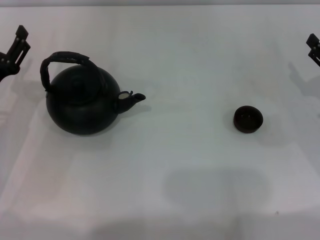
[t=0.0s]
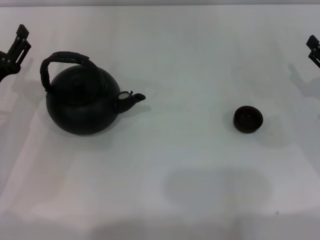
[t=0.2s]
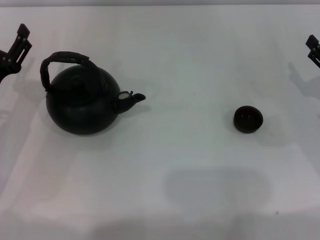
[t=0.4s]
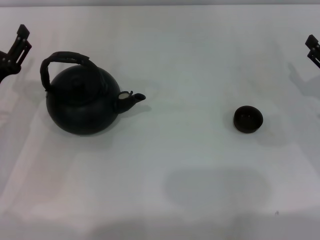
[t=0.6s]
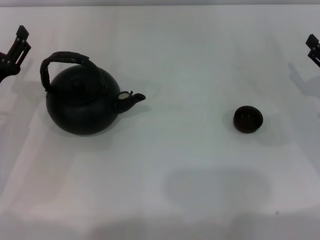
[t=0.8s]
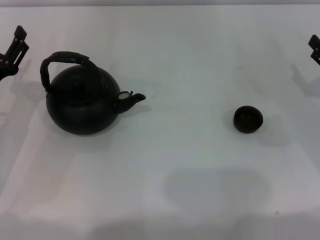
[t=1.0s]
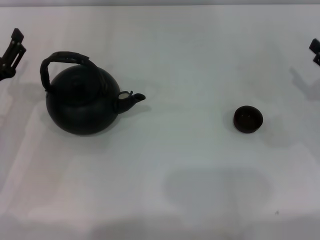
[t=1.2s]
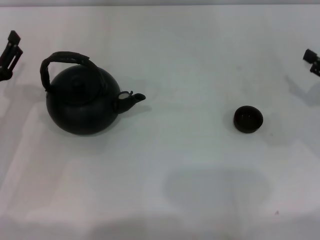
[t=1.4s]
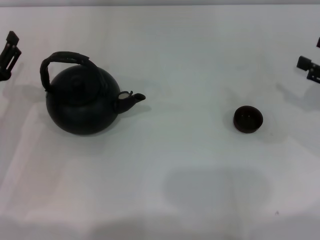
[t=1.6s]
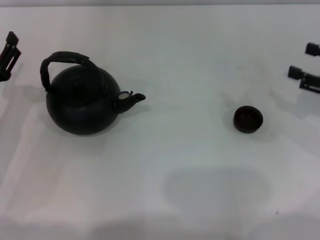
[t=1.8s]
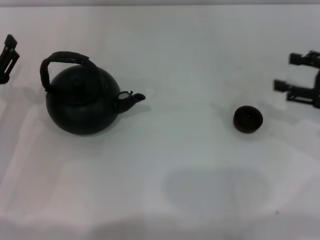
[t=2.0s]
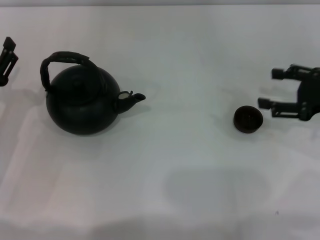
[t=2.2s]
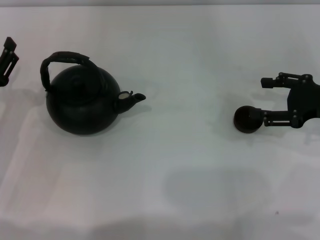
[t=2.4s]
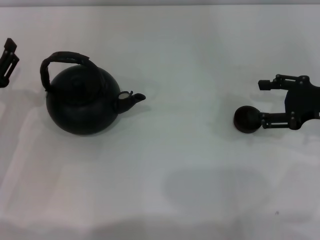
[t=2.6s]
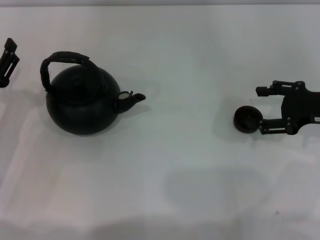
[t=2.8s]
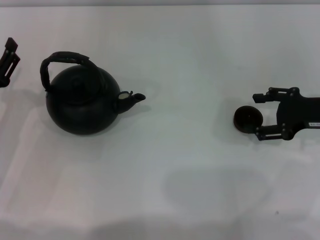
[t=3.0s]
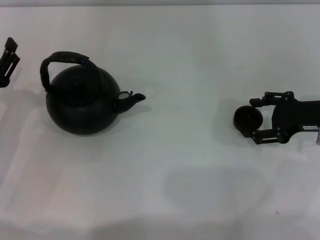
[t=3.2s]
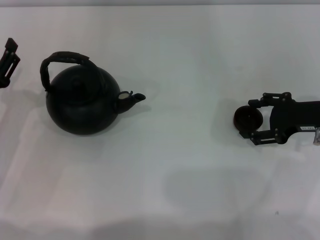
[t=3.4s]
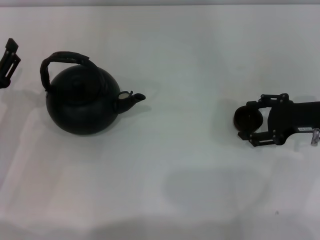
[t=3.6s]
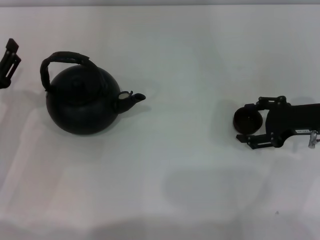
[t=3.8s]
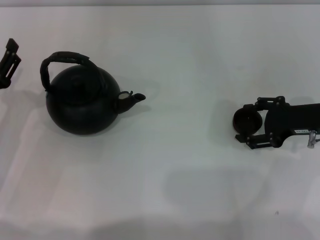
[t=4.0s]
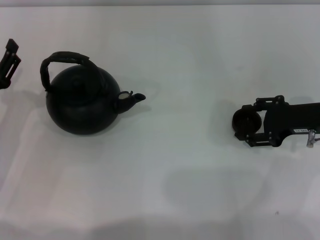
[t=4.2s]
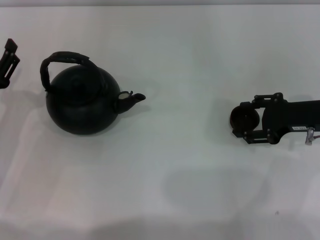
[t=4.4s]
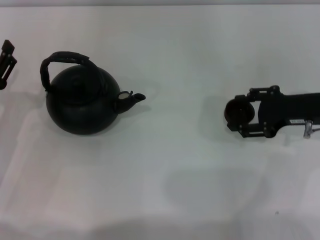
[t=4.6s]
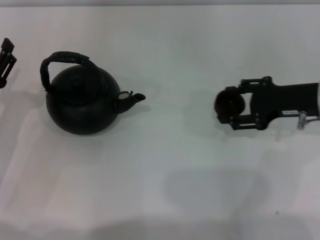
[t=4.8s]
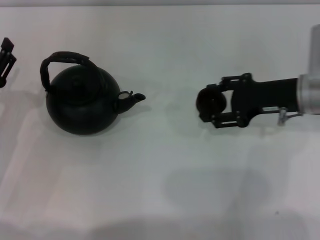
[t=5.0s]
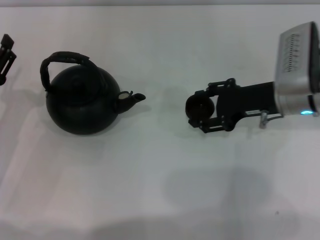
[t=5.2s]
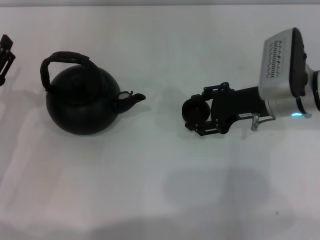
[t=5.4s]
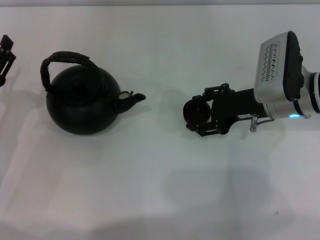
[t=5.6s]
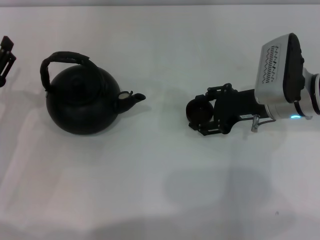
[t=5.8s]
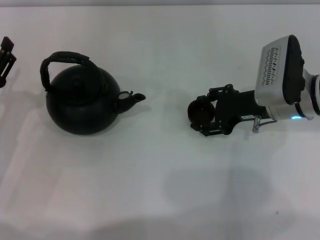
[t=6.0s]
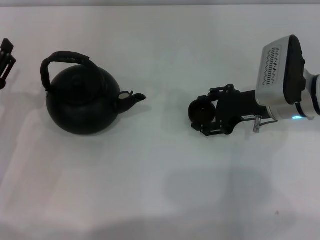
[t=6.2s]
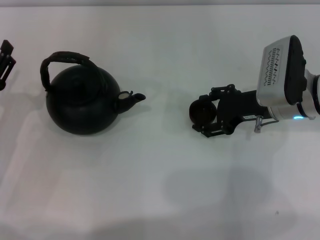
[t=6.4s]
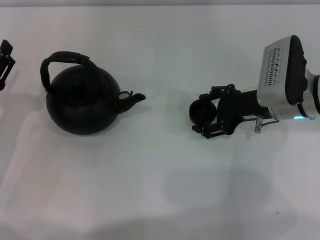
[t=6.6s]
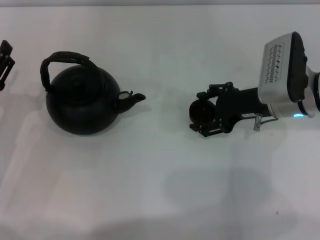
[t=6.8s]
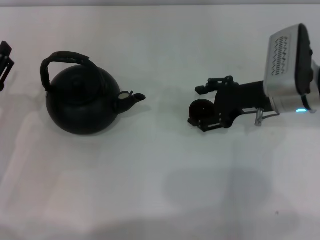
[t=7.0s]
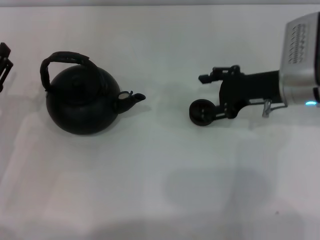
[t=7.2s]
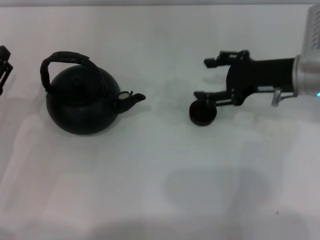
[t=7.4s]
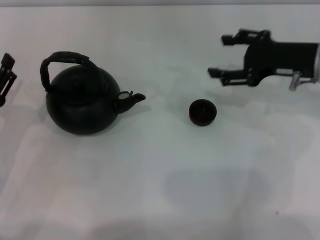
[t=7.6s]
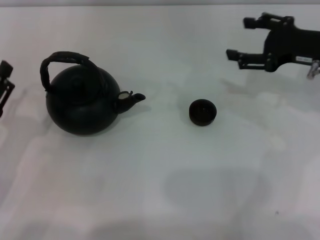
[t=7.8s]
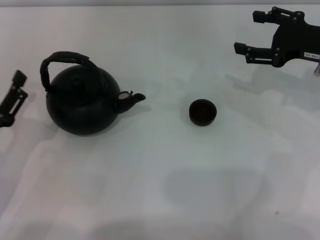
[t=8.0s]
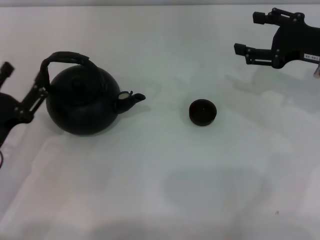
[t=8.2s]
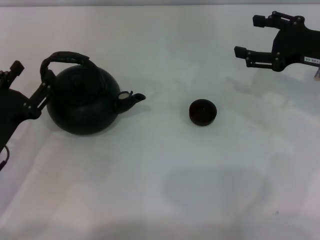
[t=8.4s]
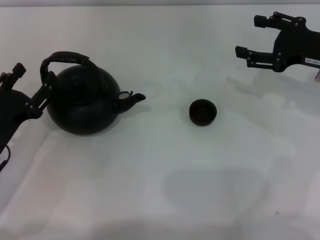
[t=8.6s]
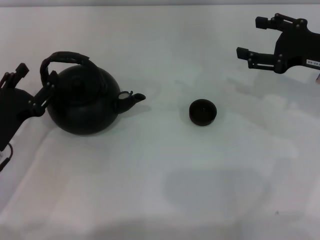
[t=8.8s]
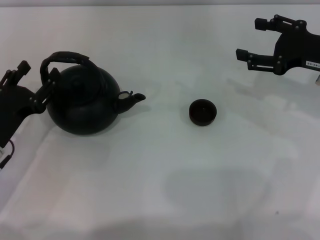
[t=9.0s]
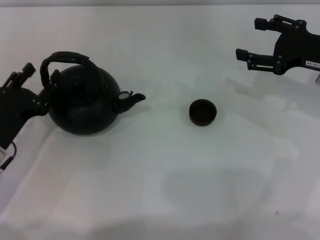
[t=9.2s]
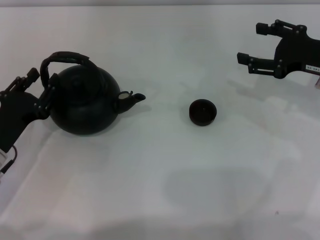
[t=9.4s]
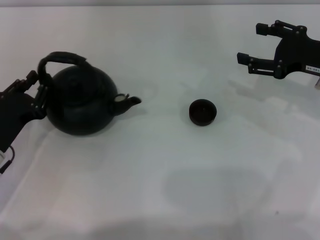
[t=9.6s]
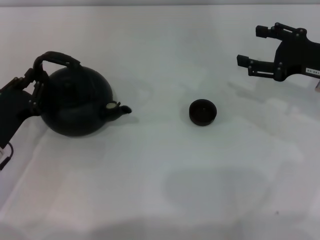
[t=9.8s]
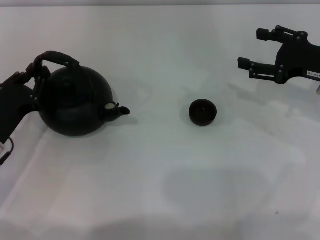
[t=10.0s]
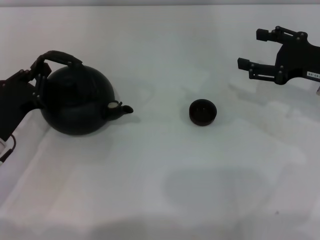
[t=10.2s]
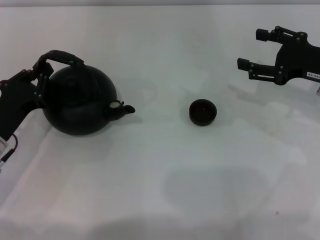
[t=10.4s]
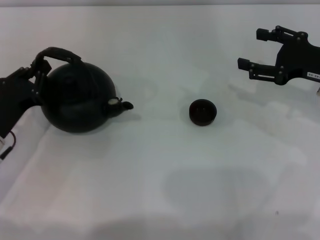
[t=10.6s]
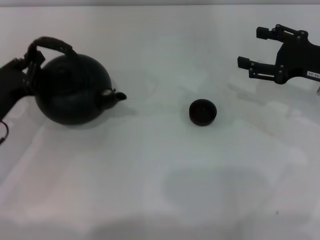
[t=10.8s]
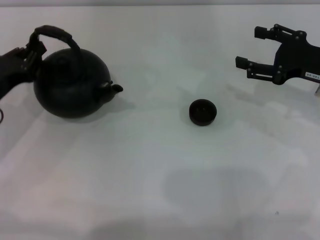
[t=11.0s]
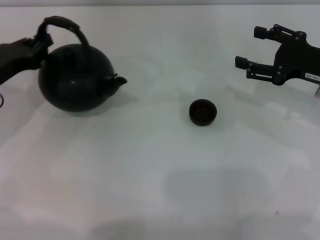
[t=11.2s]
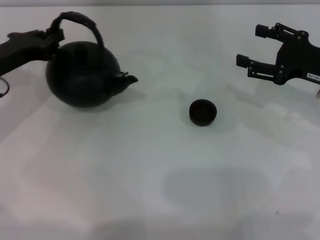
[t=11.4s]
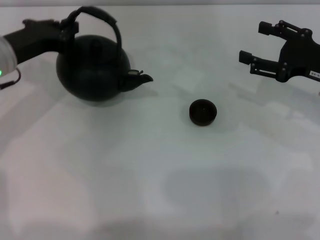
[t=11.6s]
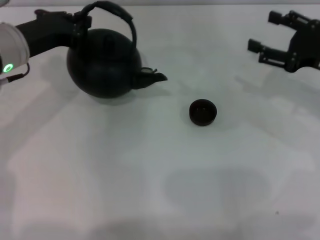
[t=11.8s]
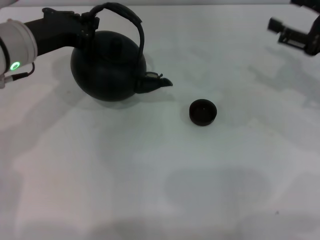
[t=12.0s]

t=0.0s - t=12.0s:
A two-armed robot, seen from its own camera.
Task of the whole recording: Grasp the handle of the teapot with one hand and pour tea into the teacup.
Step, t=0.0s - t=4.6s: Pick up the teacup with the right gripper.
Step, t=4.8s - t=7.4s: Place the teacup in the center of view with the right gripper.
Step, t=7.6s - t=11.4s: Pick up the teapot with the left gripper.
t=0.0s - t=1.6s: The right gripper changes place by about 5 cm.
t=1.6s - t=3.0s: The right gripper shifts approximately 5 cm to the left.
t=3.0s - t=4.4s: There are only small adjustments of the grippers.
t=4.4s - t=6.0s: The right gripper is displaced to the left by roughly 10 cm.
t=6.0s - t=7.6s: The right gripper shifts some 5 cm upward.
t=7.6s - t=9.0s: The grippers move only a little.
t=9.0s - t=10.4s: The left gripper closes its fingers.
t=10.4s - t=12.0s: The left gripper shifts approximately 15 cm upward, forward and to the right.

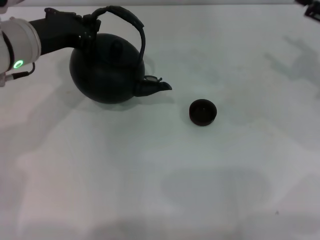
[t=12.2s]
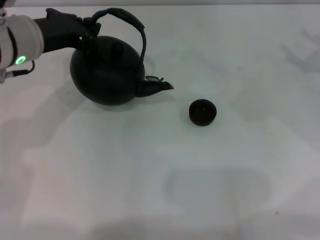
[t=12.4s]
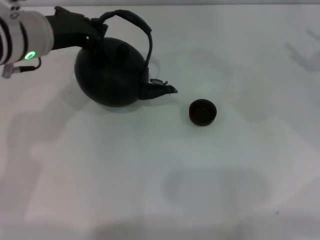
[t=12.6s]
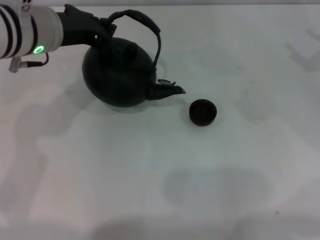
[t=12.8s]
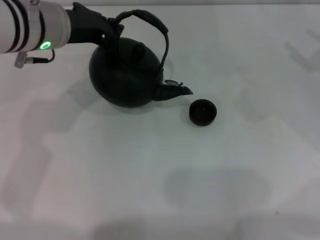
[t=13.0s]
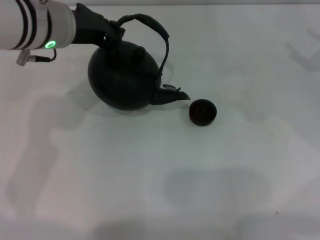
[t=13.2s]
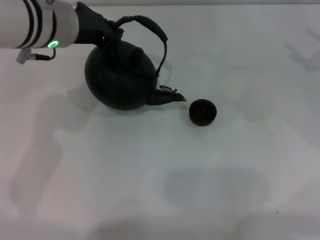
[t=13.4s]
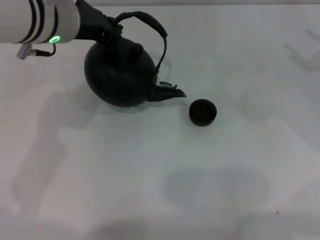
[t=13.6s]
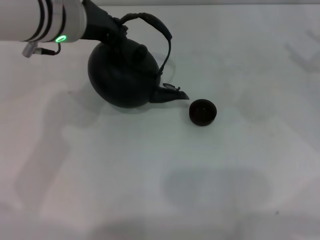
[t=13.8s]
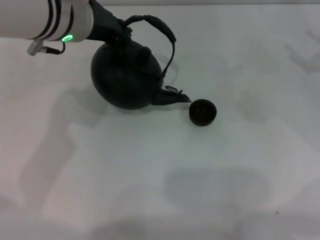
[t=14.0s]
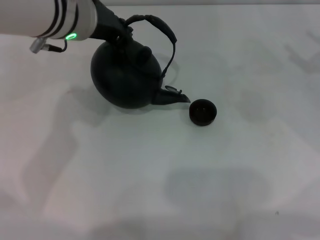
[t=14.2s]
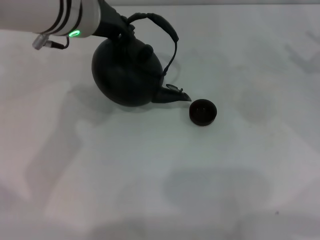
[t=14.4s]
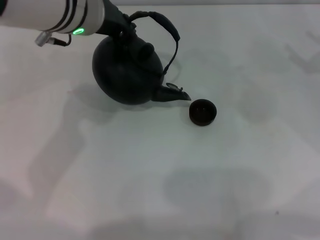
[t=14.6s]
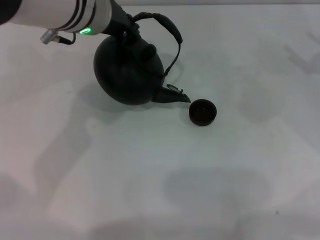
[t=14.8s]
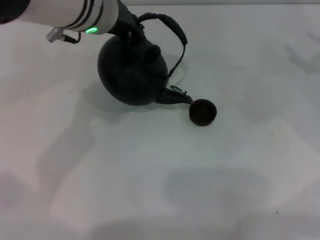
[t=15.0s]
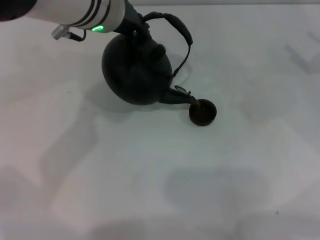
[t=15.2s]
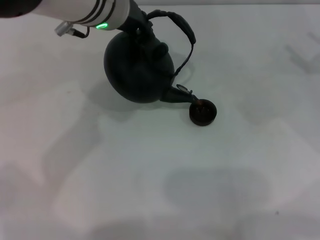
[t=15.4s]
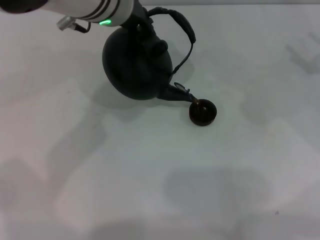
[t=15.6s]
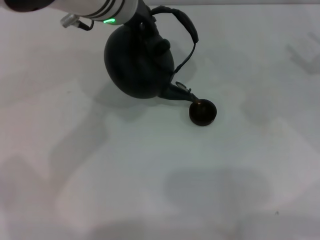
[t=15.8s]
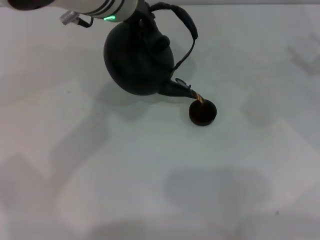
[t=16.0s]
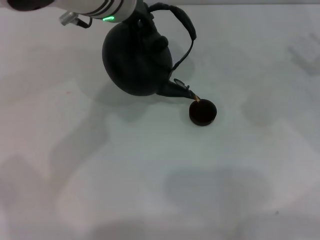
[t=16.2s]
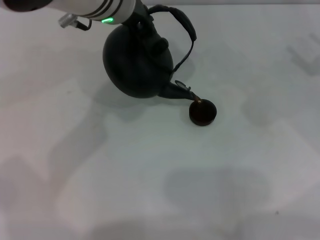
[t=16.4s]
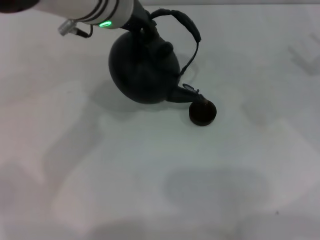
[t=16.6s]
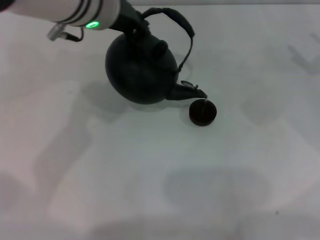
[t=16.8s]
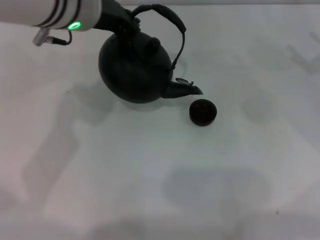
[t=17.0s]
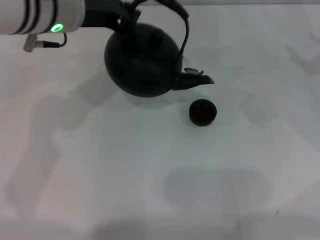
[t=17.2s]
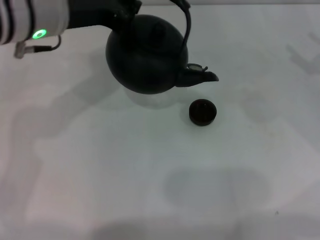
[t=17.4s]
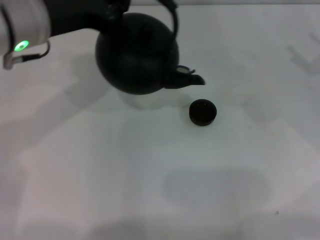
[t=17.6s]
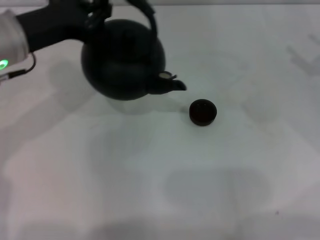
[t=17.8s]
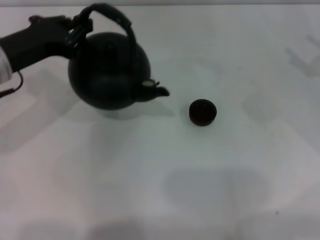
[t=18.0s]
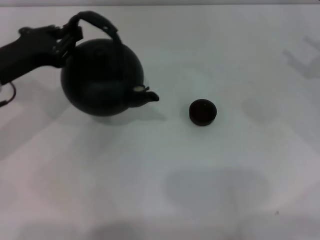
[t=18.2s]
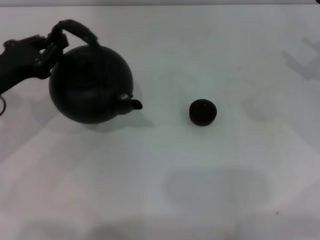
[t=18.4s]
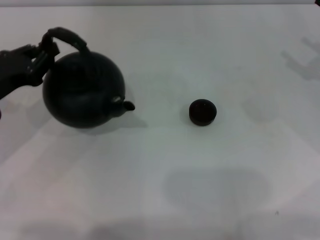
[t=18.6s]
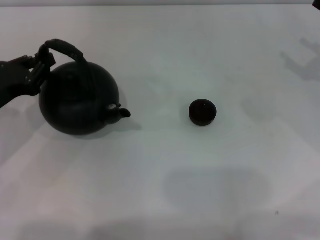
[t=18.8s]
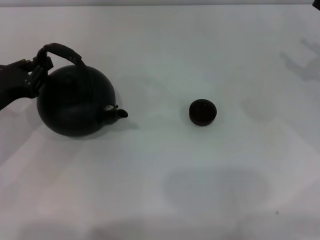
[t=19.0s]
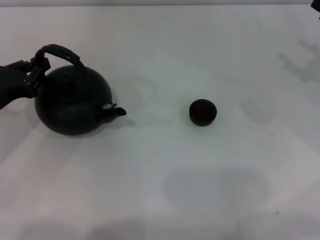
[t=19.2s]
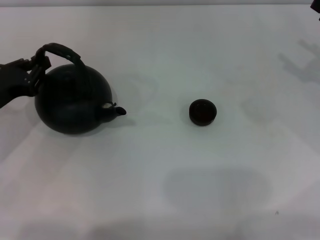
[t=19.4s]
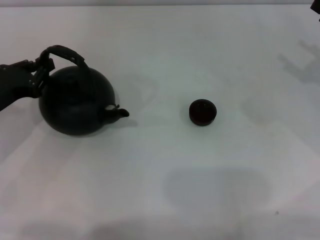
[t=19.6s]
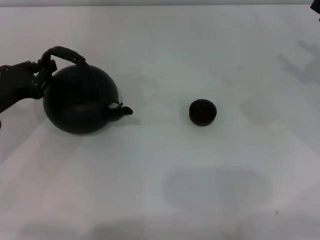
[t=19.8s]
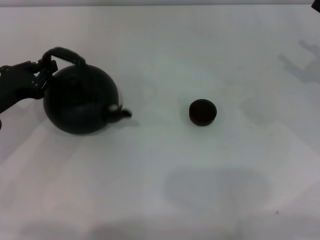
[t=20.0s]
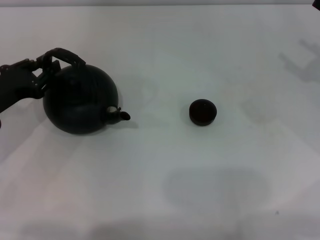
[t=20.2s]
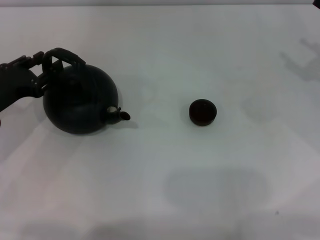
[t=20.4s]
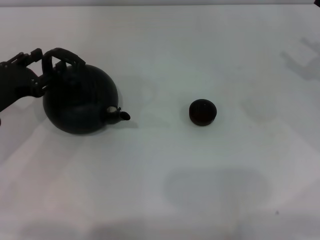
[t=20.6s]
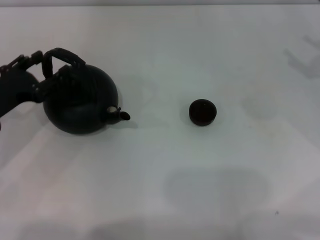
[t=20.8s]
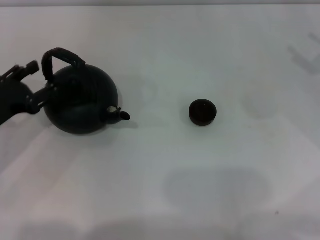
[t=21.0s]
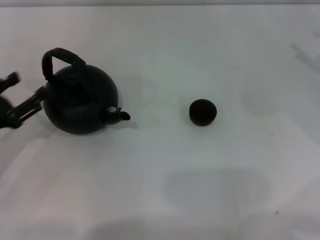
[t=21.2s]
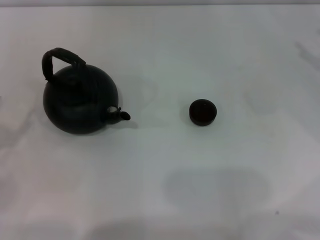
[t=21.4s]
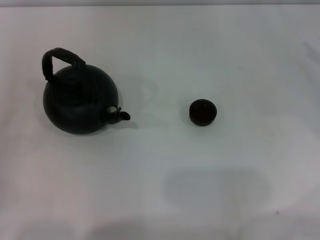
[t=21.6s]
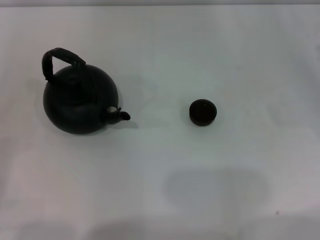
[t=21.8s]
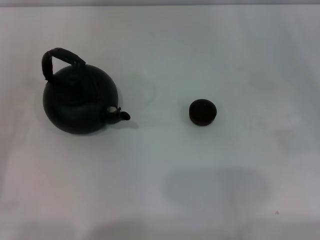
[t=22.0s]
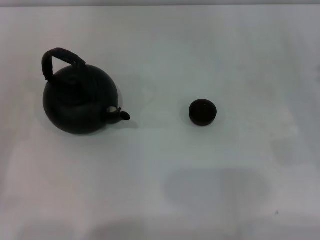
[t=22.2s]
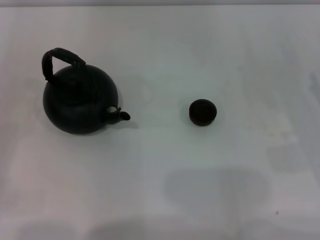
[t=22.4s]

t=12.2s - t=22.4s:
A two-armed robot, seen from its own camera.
Task of the whole recording: Grasp the handle of the teapot with one hand and pour tea into the teacup.
Step, t=12.2s - t=17.0s: Pour tea into the teacup with the left gripper.
Step, t=17.2s - t=21.0s: Put down the teapot with the left gripper.
t=12.2s - t=13.6s: The left gripper shifts roughly 5 cm to the right.
t=13.6s - t=15.2s: The left gripper heads to the right, covering approximately 5 cm.
t=15.2s - t=16.6s: The grippers move only a little.
t=16.6s - t=18.0s: The left gripper moves to the left and downward, about 20 cm.
t=18.0s - t=19.4s: The left gripper heads downward and to the left, covering some 10 cm.
t=19.4s - t=21.0s: The left gripper opens its fingers.
t=21.0s - t=22.4s: The right gripper moves downward and backward, roughly 15 cm; the left gripper heads to the left and backward, covering some 15 cm.
